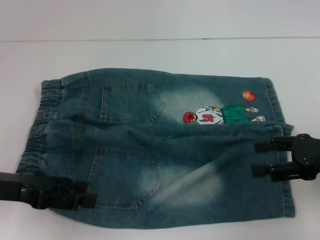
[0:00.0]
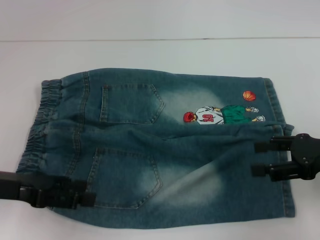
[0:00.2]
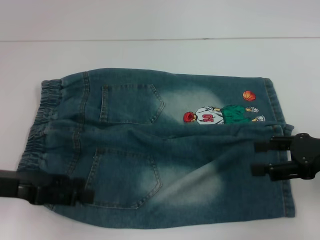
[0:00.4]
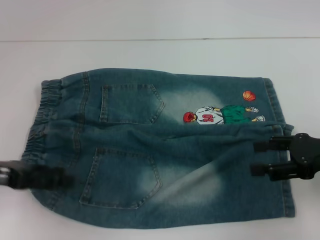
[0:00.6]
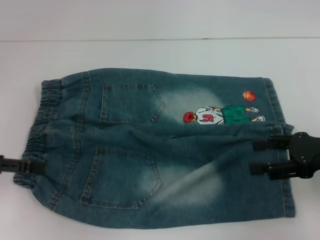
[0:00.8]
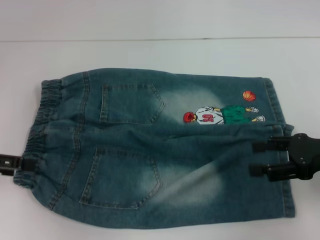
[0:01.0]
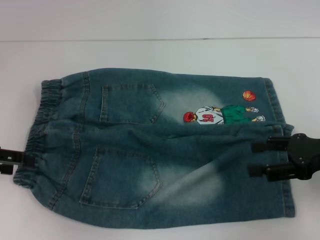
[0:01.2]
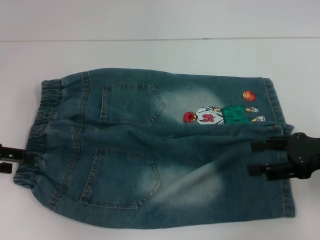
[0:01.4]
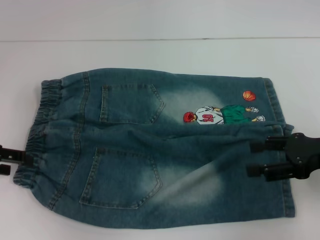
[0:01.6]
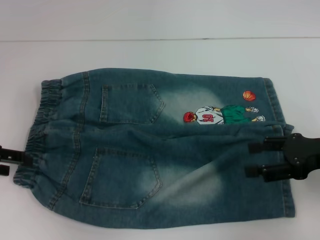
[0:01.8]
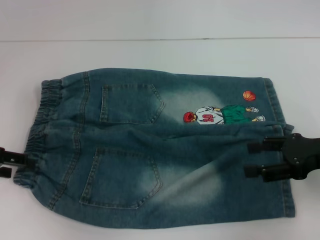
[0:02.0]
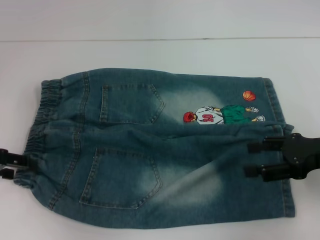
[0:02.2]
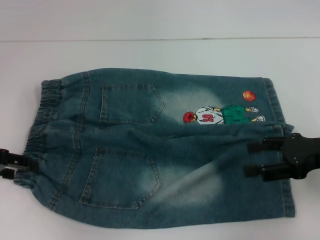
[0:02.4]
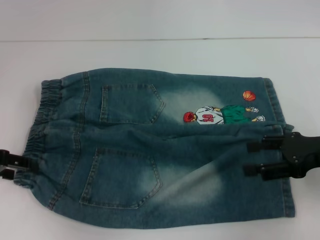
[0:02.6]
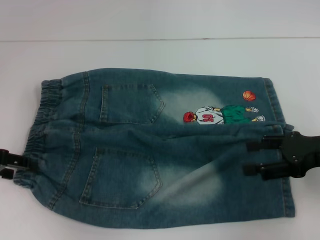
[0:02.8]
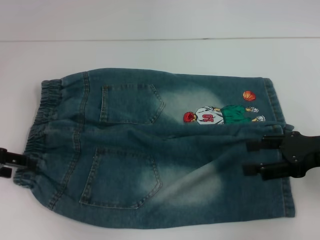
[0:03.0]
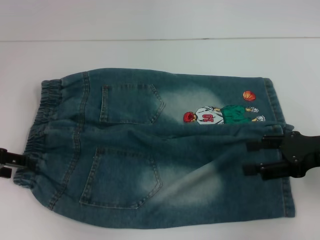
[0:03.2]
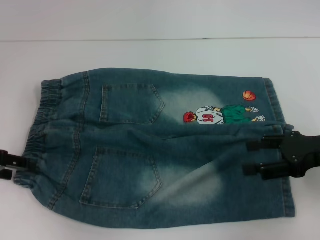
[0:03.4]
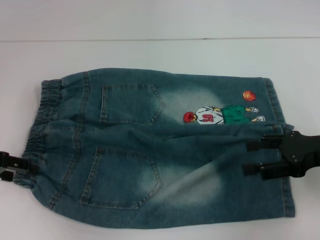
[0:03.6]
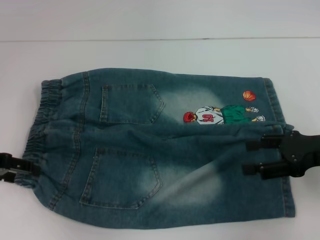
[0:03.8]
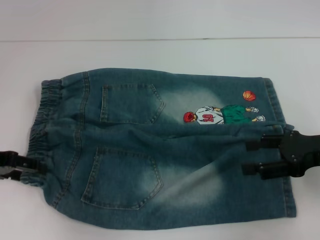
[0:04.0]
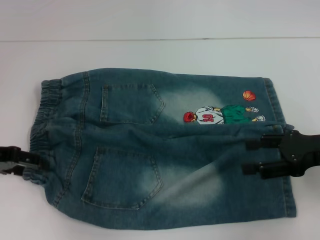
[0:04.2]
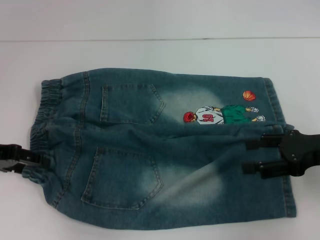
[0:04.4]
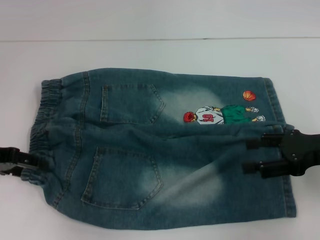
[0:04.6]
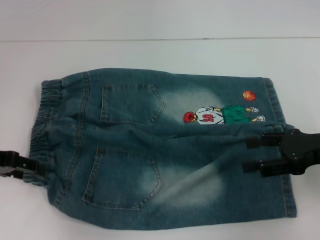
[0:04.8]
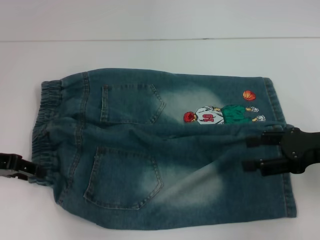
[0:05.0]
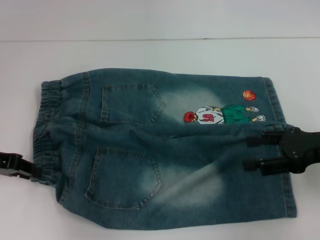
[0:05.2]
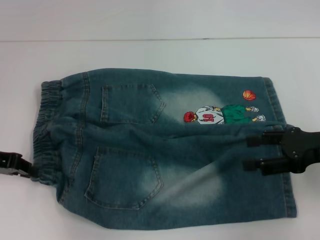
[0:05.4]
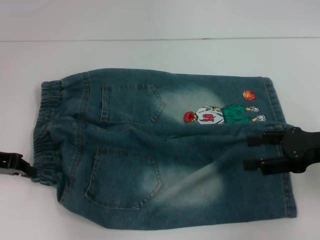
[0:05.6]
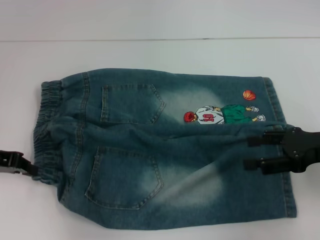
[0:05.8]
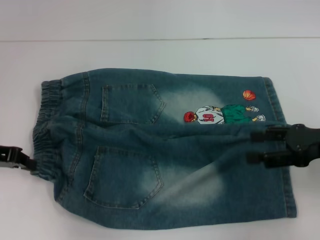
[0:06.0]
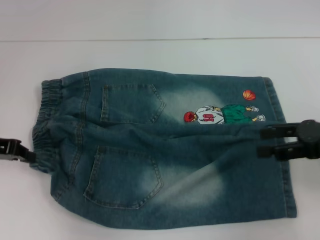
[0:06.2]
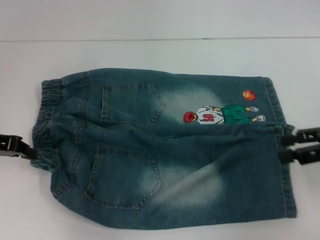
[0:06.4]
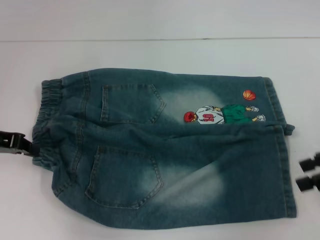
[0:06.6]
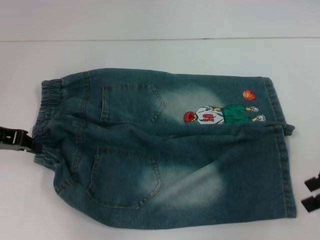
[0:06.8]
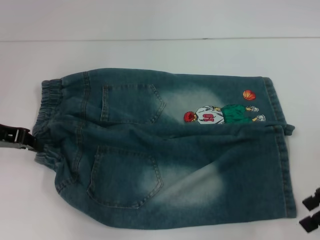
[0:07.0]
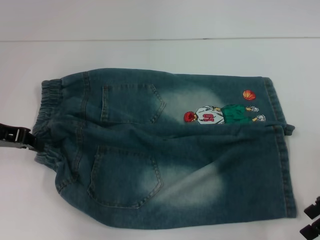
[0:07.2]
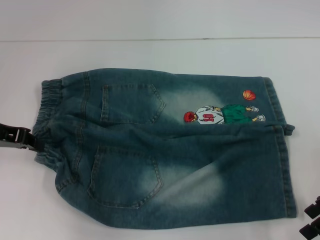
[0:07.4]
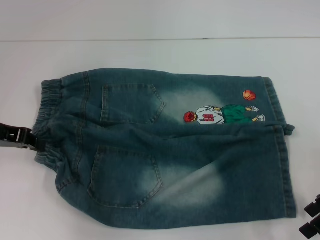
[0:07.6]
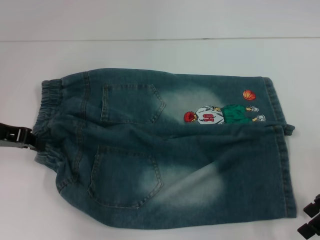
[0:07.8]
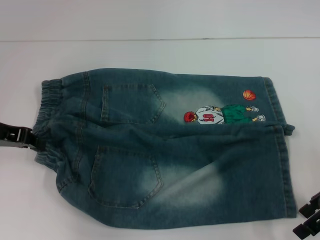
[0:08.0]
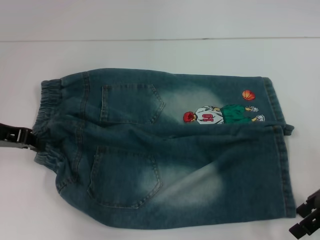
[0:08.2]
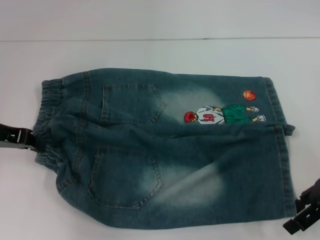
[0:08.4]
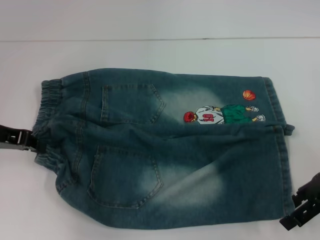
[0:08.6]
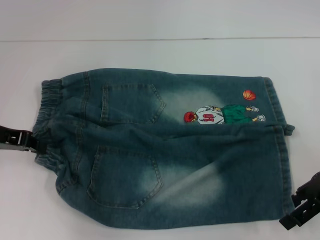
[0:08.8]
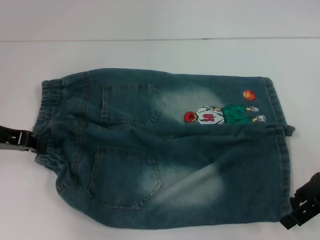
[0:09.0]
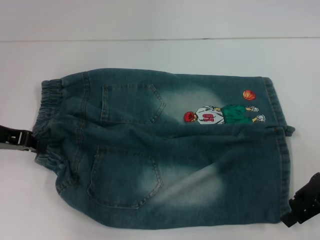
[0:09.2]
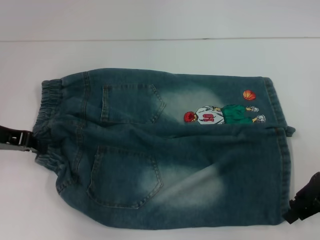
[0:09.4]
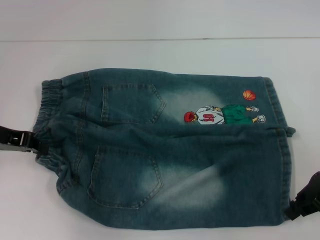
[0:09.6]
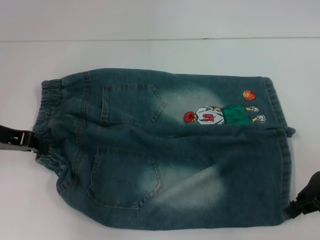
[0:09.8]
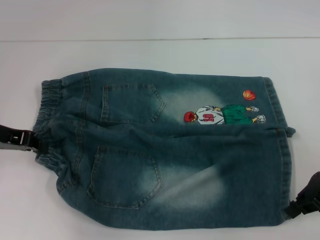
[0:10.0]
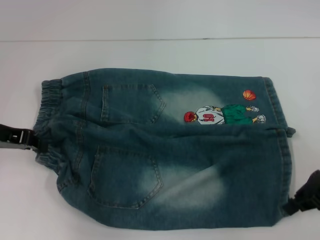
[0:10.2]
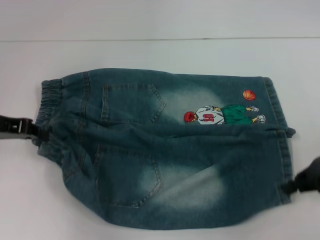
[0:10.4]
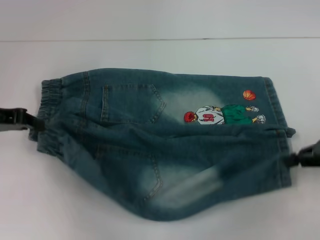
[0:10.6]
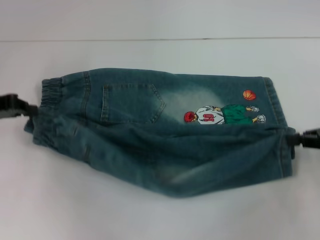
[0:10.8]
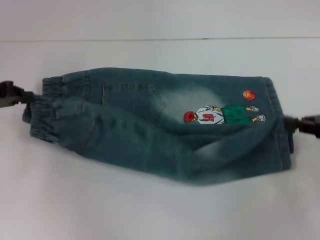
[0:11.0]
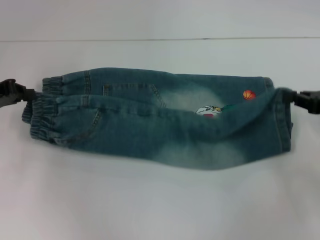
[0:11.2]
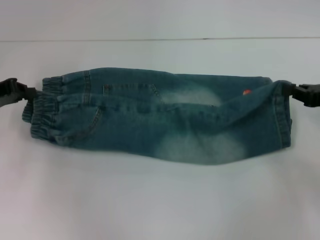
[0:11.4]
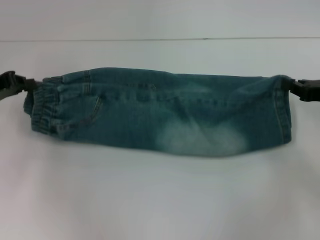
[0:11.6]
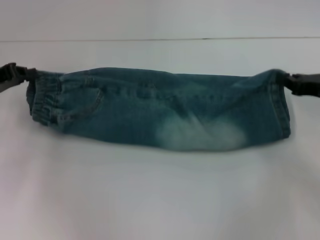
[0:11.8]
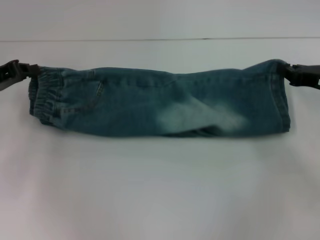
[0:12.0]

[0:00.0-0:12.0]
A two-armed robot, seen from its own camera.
Step, 0:00.0 to 0:05.8: Hold the lower left waistband with your left hand.
Step, 0:06.0 to 0:09.6: Grab the lower right pant leg with your right hand.
0:00.0 to 0:01.6: The left gripper heads to the left, covering some 5 cm.
0:01.6 to 0:03.0: Both grippers stay about where they are.
0:03.0 to 0:04.4: The grippers move only a little.
0:04.4 to 0:06.0: The left gripper closes up.
0:07.6 to 0:09.0: The grippers stay close to where they were, moving slightly.
0:09.0 to 0:10.4: The right gripper closes up.
0:10.4 to 0:12.0: The right gripper travels forward by about 5 cm.

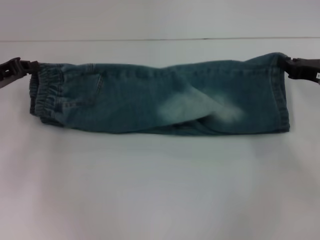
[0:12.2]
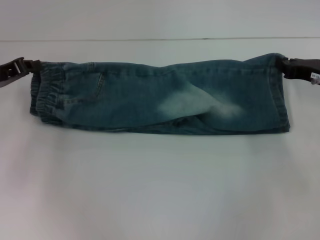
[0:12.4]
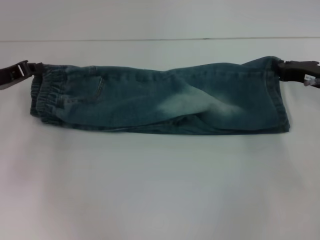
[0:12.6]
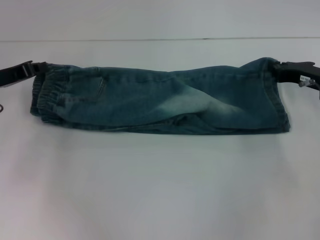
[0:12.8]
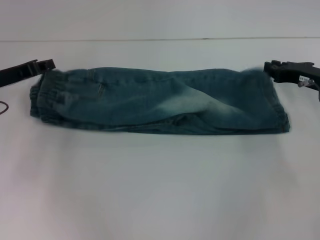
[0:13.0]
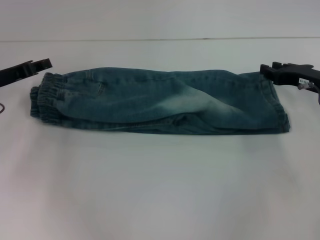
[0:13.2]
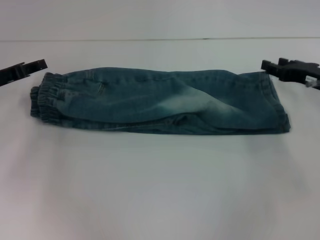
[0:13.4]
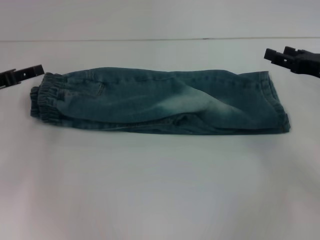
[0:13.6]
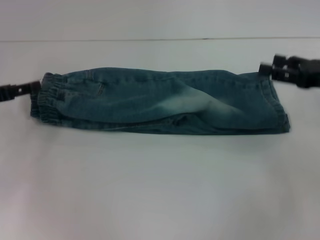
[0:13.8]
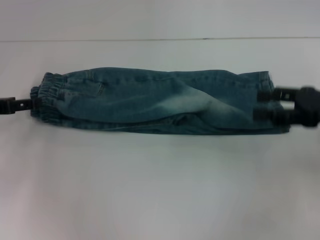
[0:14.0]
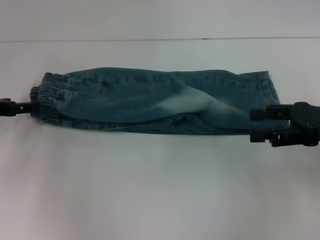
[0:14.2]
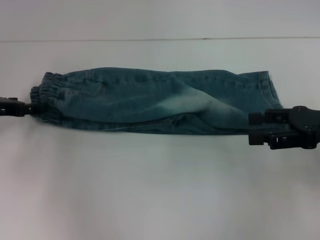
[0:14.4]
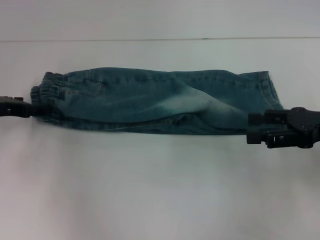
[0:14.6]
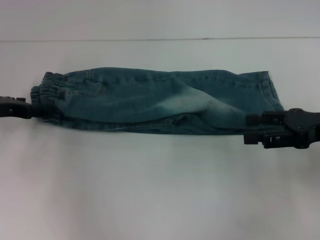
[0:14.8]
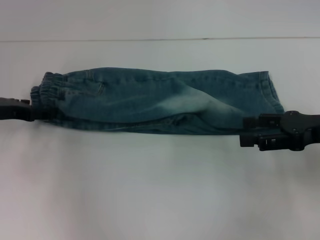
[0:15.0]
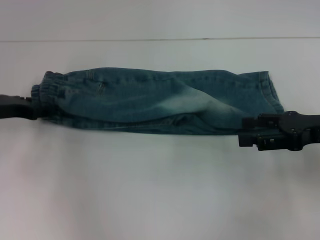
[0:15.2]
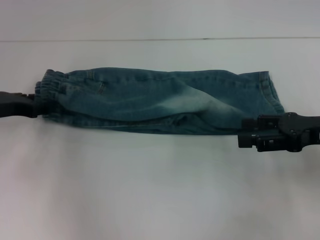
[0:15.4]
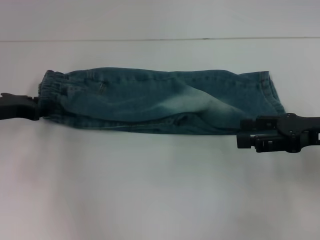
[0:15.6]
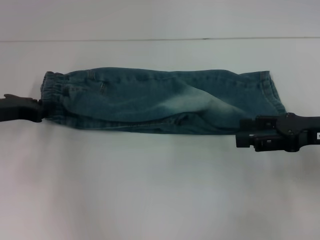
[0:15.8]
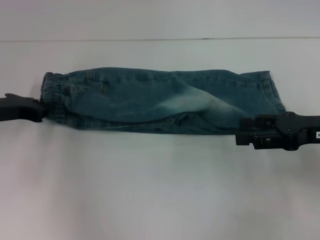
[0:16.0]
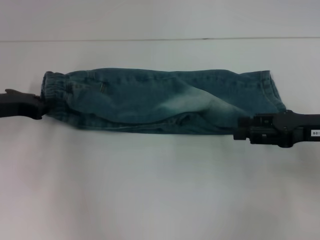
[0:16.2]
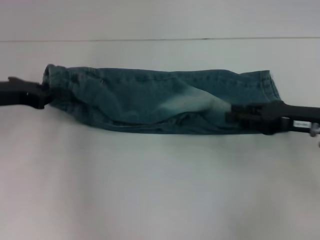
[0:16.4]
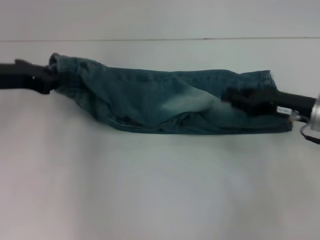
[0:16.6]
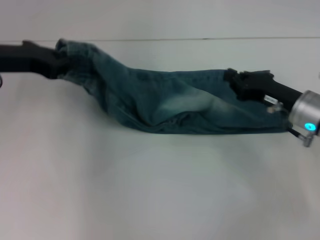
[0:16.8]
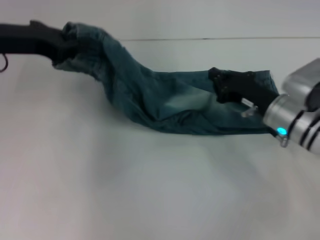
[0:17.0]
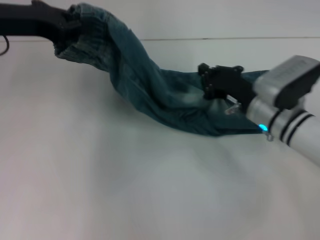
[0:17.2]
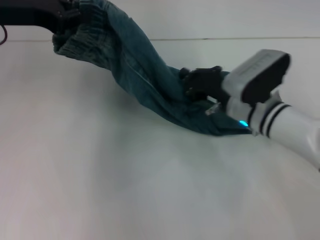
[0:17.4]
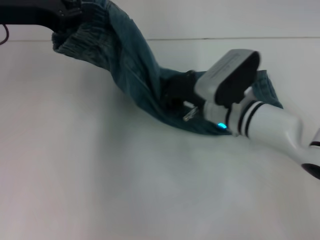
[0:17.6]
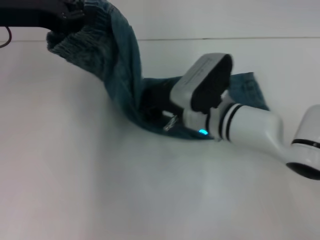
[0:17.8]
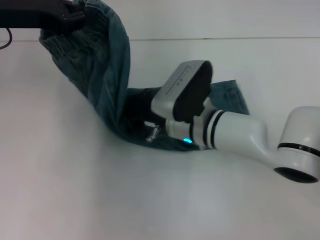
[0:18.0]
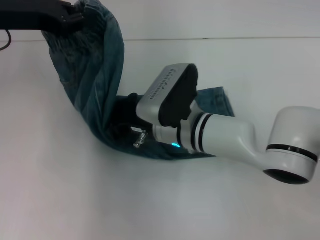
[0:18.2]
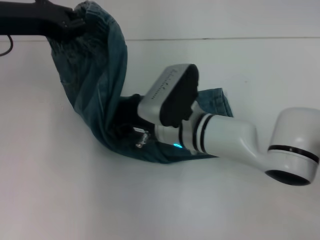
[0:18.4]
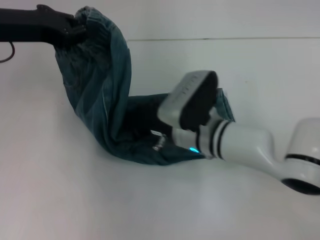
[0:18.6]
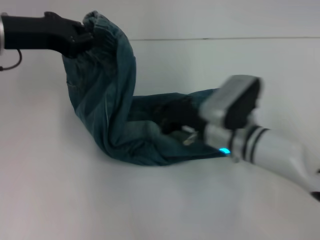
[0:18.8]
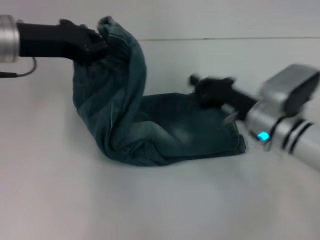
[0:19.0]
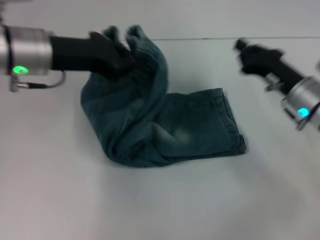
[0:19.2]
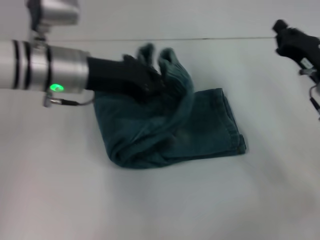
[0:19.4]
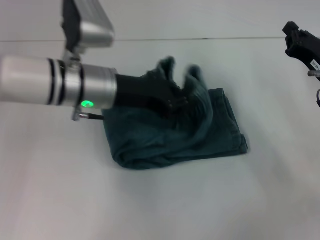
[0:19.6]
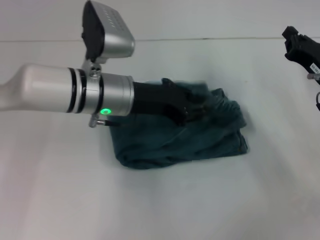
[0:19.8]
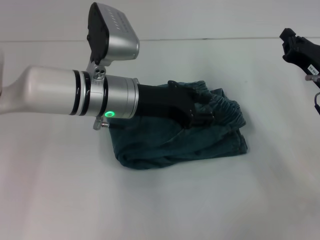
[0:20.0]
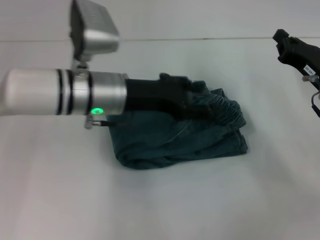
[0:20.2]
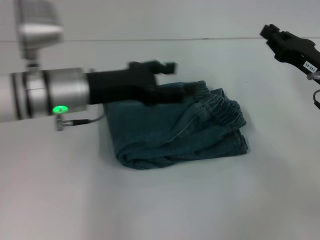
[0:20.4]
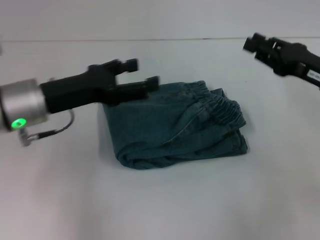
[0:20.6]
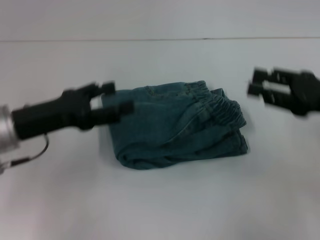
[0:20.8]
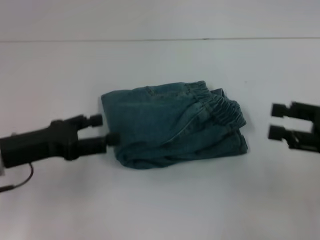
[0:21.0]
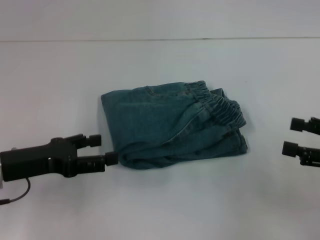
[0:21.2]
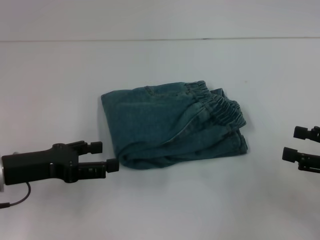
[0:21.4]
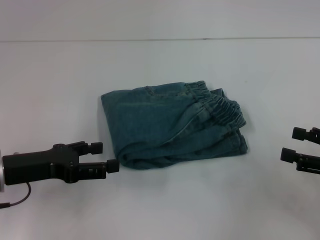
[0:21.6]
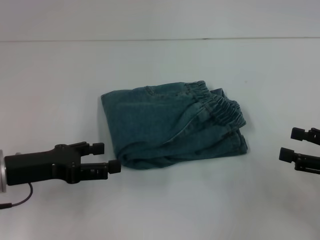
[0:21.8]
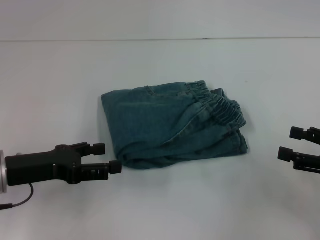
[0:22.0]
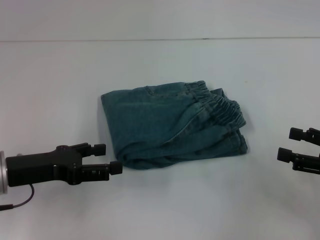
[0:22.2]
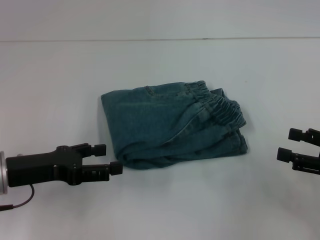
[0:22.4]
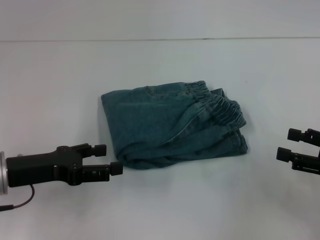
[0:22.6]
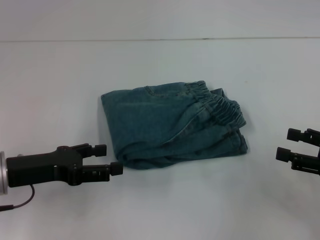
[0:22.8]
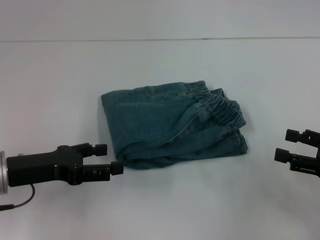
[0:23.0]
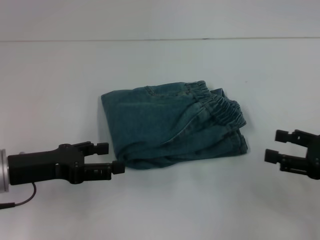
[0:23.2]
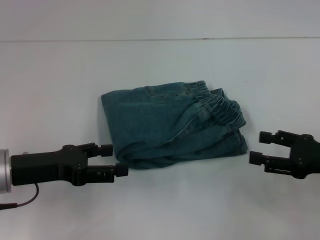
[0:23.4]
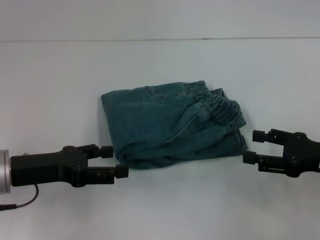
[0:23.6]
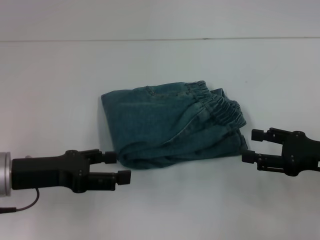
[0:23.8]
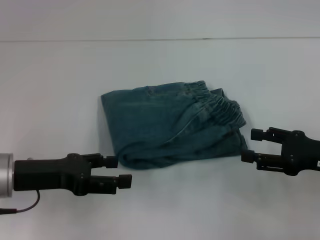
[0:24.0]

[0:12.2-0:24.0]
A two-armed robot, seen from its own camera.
Step, 0:13.6 to 0:16.2: Hold the waistband with your left hand.
Step, 0:16.4 to 0:18.6: Press the middle of the pants with your right hand.
Step, 0:18.8 to 0:20.2: Fold to the right with your left hand.
0:12.2 to 0:13.6: The right gripper opens up. The left gripper opens up.
0:13.6 to 0:15.2: The right gripper shifts some 5 cm backward.
0:15.2 to 0:16.6: The right gripper changes place by roughly 5 cm, and closes. The left gripper is displaced upward by about 5 cm, and closes its fingers.
0:16.6 to 0:18.2: The left gripper travels upward by some 5 cm. Meanwhile the right gripper travels to the left by roughly 25 cm, and closes up.
0:18.2 to 0:19.6: The left gripper is displaced to the right and downward by roughly 15 cm. Meanwhile the right gripper goes roughly 25 cm to the right.
0:19.6 to 0:21.0: The left gripper is displaced to the left and backward by about 15 cm, and opens, while the right gripper heads backward and upward, covering some 10 cm, and opens up.
0:21.0 to 0:22.6: The right gripper shifts by some 5 cm, and opens its fingers.
0:22.6 to 0:24.0: The right gripper shifts by about 5 cm.
